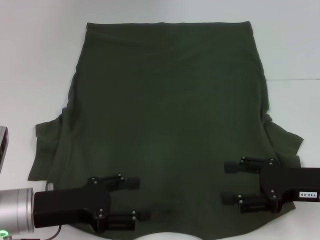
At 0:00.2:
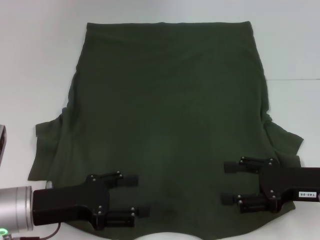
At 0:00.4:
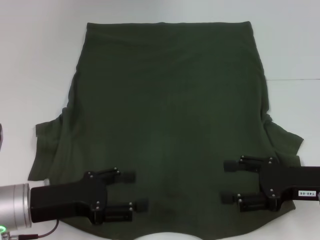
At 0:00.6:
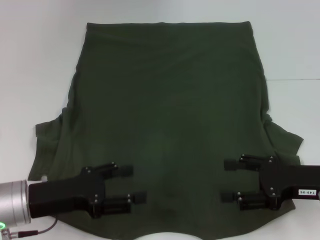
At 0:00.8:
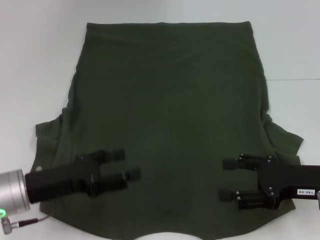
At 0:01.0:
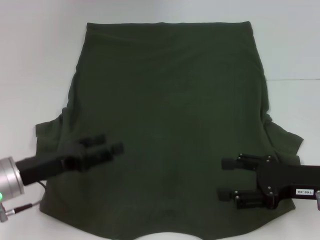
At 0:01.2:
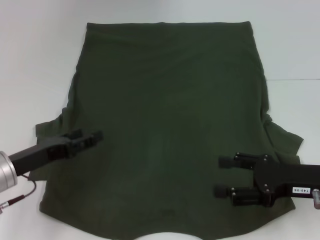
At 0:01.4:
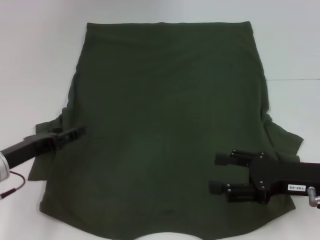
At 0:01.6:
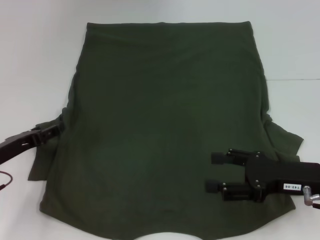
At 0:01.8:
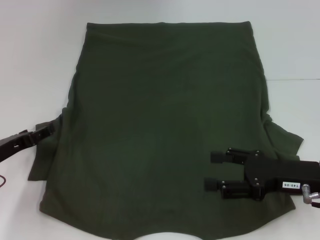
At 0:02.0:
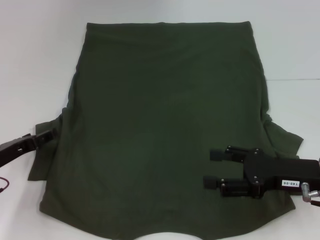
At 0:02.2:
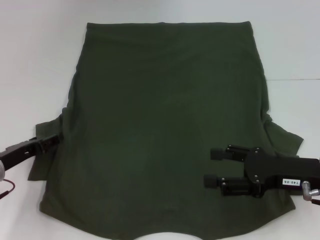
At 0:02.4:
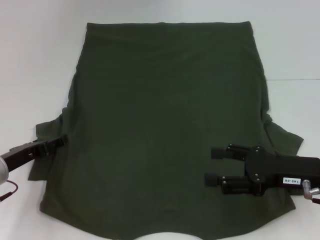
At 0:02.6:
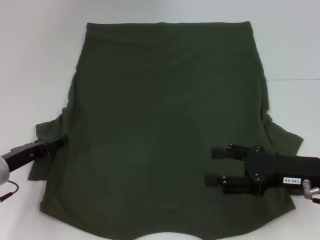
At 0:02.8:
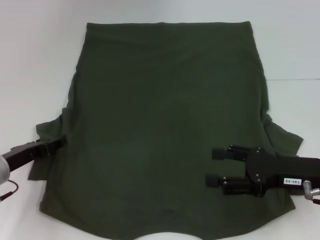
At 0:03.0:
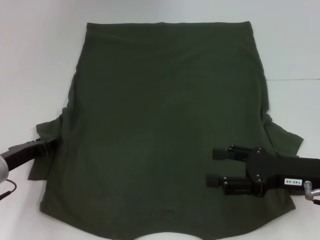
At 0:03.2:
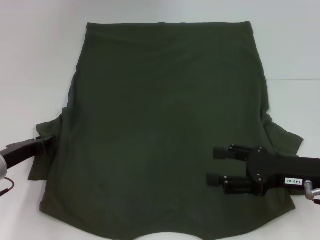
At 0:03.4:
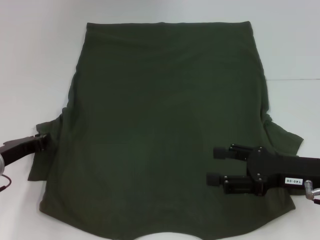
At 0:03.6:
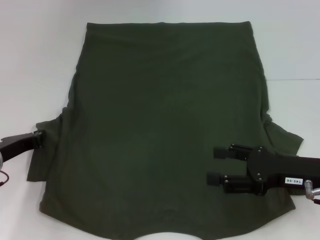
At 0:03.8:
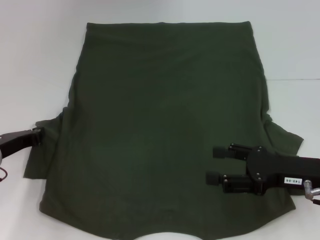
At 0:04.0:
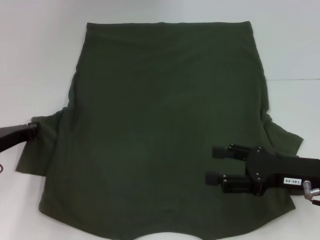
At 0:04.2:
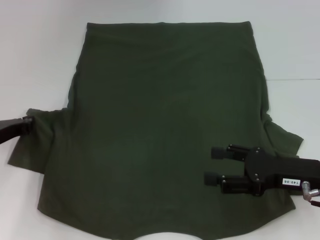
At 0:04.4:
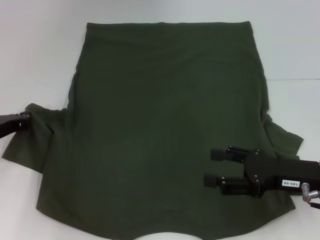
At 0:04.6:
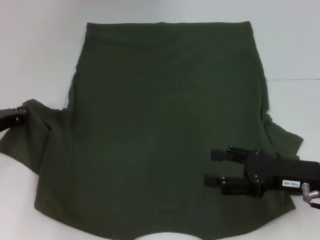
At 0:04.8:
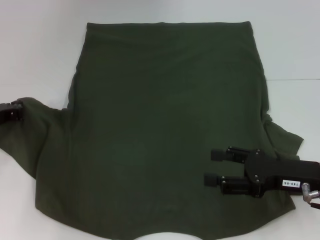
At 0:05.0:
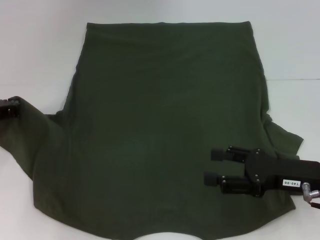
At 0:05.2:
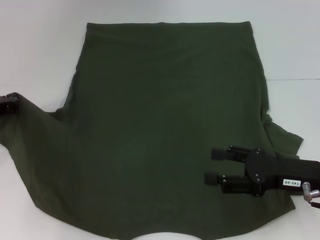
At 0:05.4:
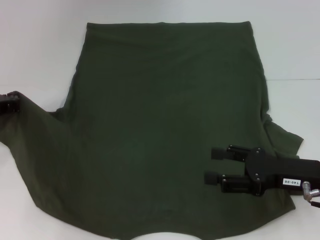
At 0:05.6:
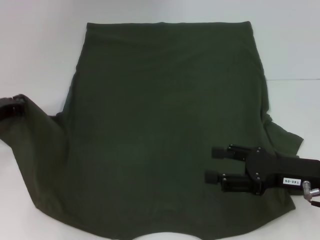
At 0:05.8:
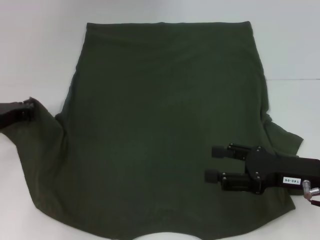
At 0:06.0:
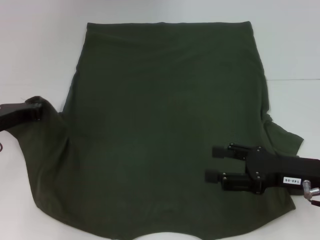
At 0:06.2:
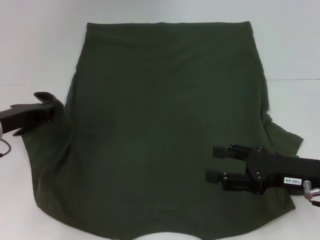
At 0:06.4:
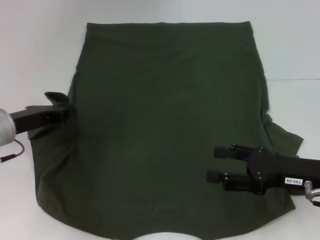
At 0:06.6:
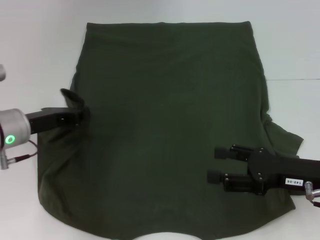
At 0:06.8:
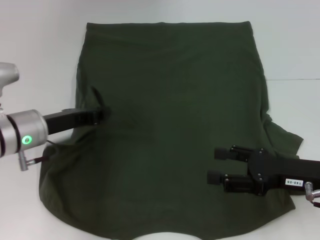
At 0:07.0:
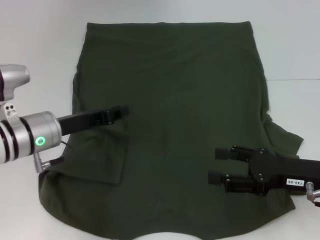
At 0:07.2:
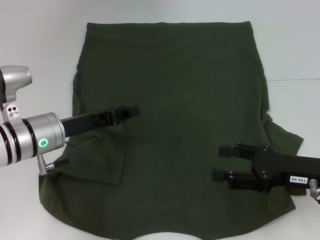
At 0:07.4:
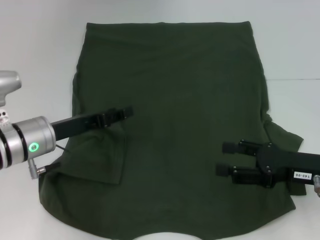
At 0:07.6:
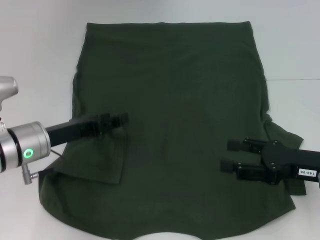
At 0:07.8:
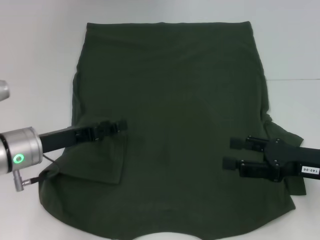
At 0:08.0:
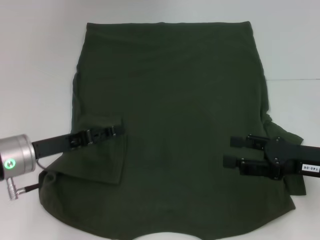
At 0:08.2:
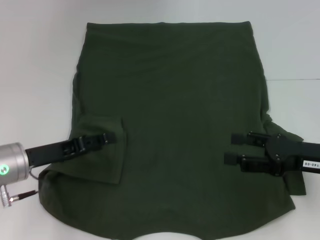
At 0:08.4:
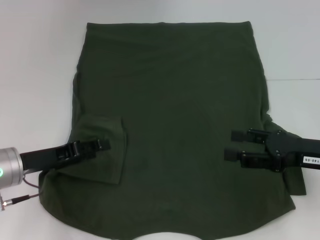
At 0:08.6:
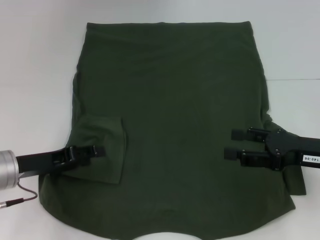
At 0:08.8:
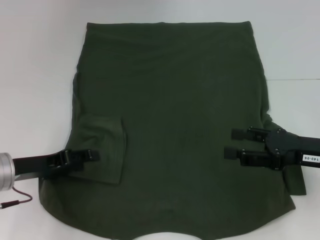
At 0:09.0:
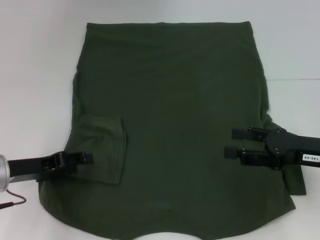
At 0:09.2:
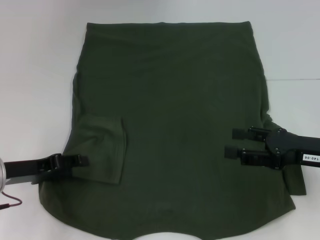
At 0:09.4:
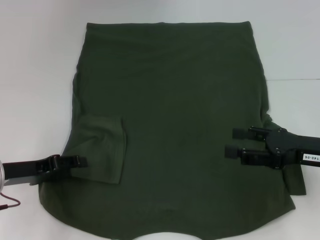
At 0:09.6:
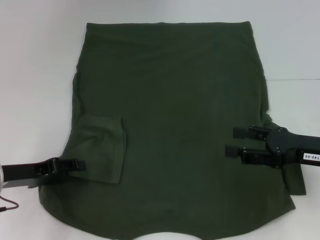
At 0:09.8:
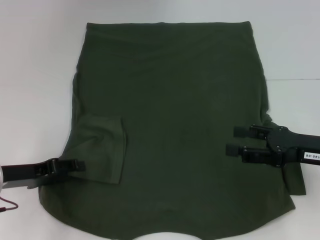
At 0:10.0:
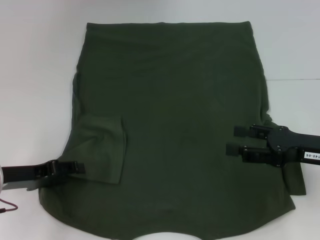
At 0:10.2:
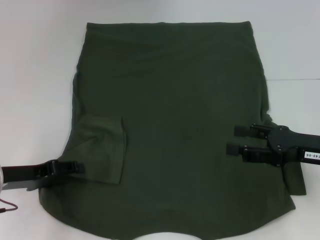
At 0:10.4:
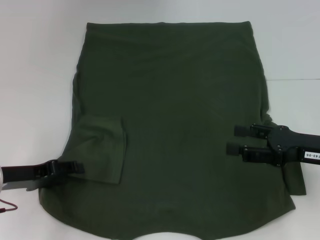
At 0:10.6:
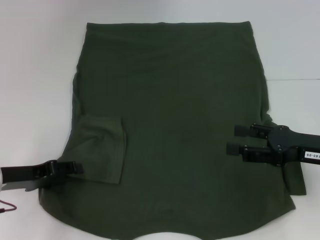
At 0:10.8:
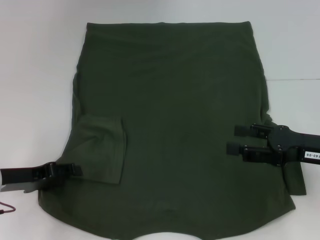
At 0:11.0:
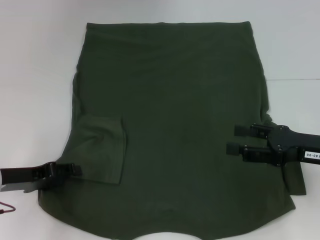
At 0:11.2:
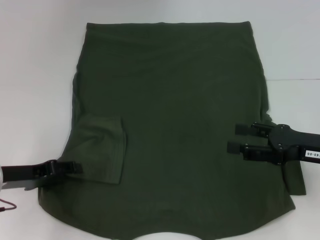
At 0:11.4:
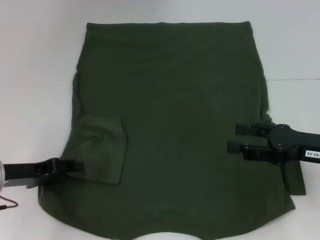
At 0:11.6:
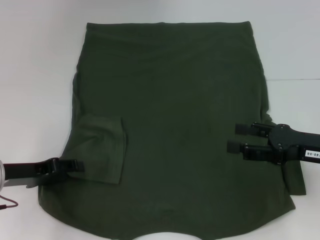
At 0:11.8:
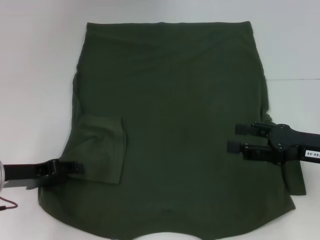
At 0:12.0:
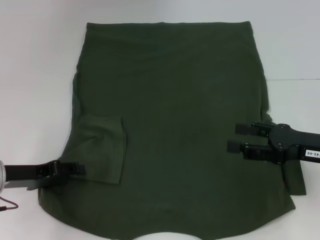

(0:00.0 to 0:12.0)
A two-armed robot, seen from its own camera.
Step, 0:00.0 - 0:07.8: Fold the bottom left sleeve with your left hand.
0:00.0 - 0:01.6: The left gripper goes some 10 cm to the left and forward.
0:01.6 - 0:03.0: The grippers move only a little.
0:03.0 - 0:04.4: The left gripper ends up some 5 cm from where it was, and closes up.
0:04.4 - 0:06.0: The grippers move only a little.
0:06.0 - 0:07.6: The left gripper moves to the right, roughly 5 cm, and opens its fingers.
0:07.6 - 0:09.0: The left gripper shifts some 5 cm to the left.
0:09.0 - 0:10.4: There are only small adjustments of the grippers.
0:10.4 - 0:12.0: Both grippers stay put.

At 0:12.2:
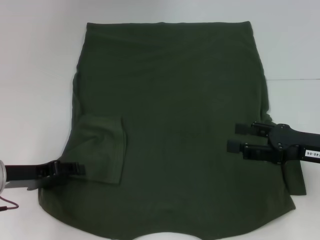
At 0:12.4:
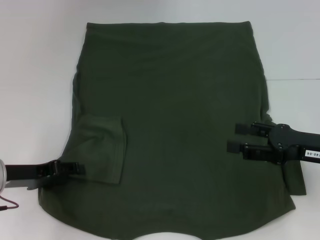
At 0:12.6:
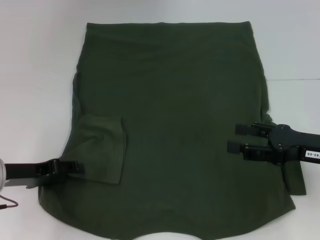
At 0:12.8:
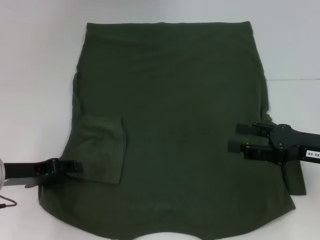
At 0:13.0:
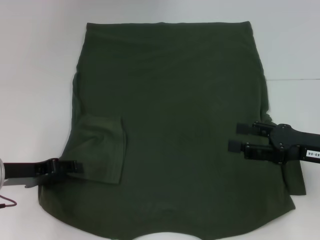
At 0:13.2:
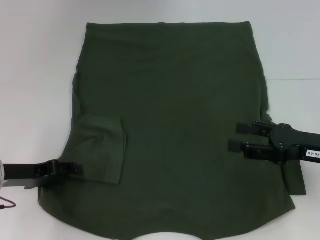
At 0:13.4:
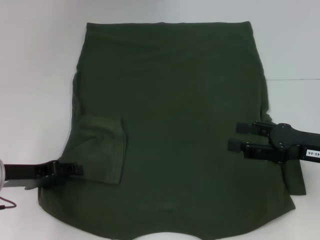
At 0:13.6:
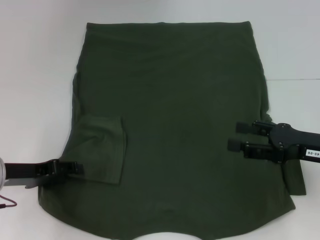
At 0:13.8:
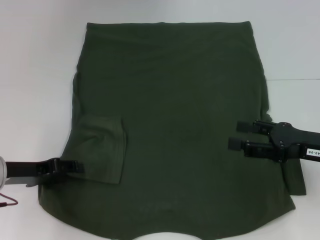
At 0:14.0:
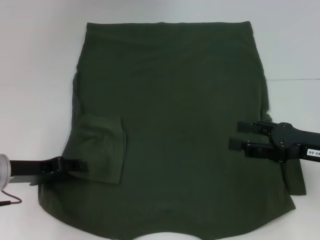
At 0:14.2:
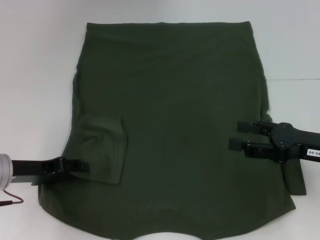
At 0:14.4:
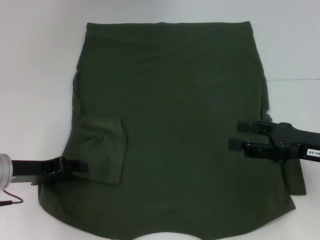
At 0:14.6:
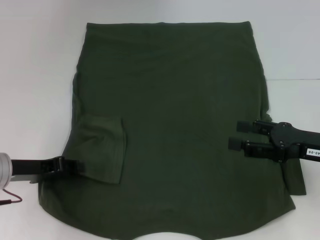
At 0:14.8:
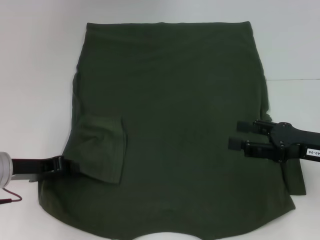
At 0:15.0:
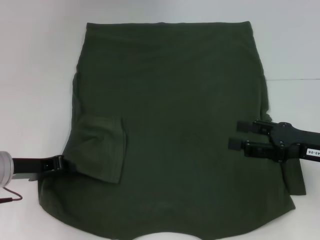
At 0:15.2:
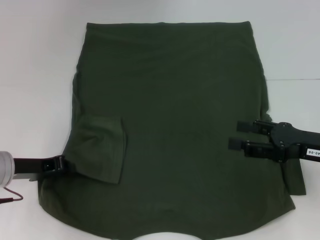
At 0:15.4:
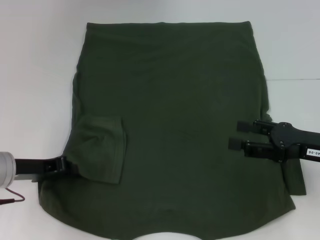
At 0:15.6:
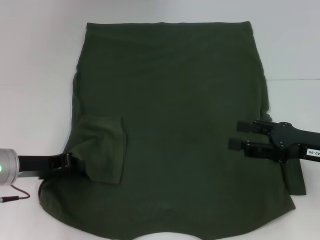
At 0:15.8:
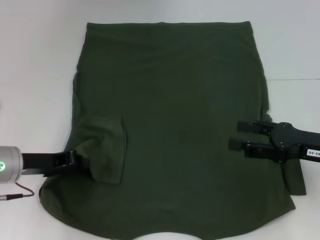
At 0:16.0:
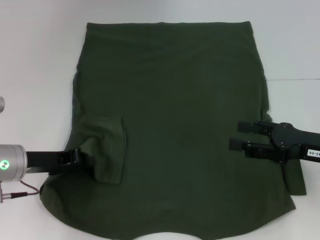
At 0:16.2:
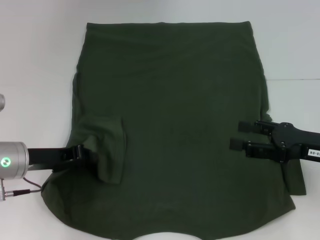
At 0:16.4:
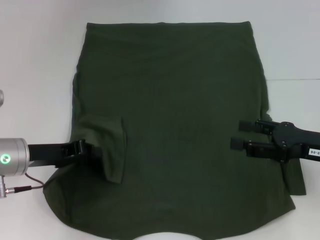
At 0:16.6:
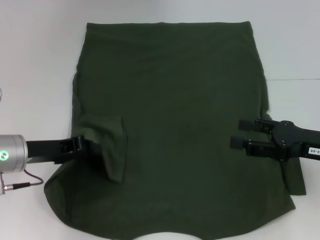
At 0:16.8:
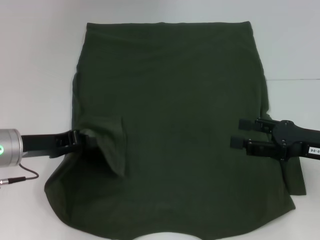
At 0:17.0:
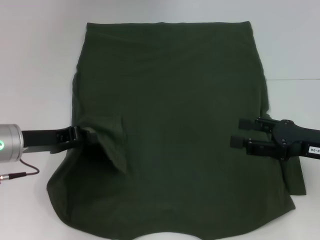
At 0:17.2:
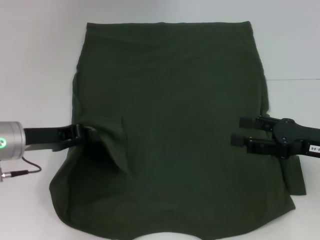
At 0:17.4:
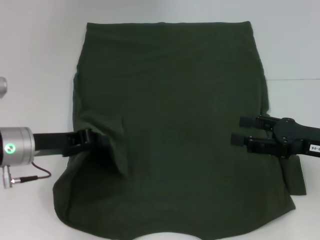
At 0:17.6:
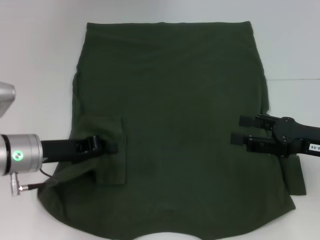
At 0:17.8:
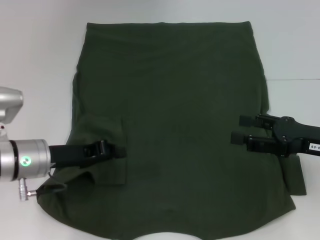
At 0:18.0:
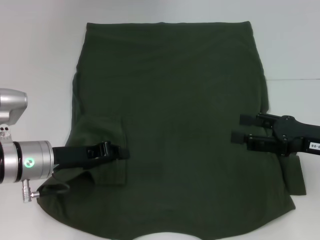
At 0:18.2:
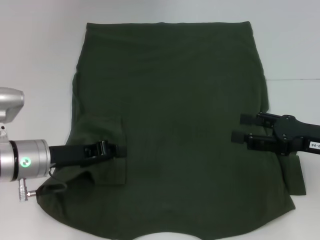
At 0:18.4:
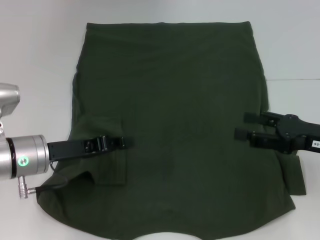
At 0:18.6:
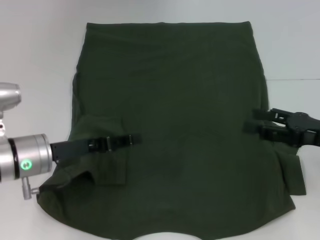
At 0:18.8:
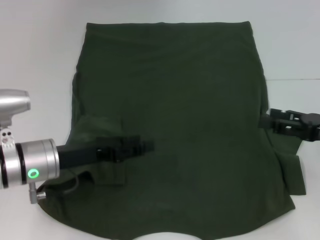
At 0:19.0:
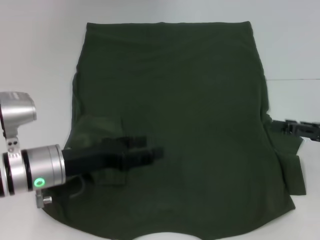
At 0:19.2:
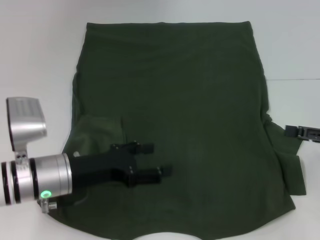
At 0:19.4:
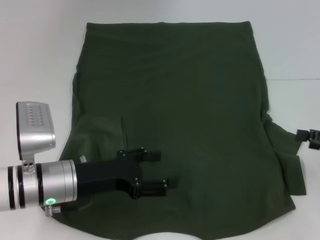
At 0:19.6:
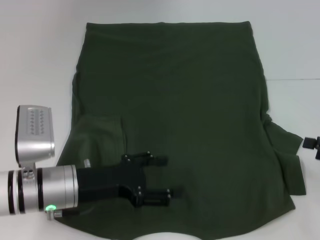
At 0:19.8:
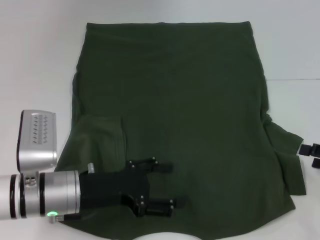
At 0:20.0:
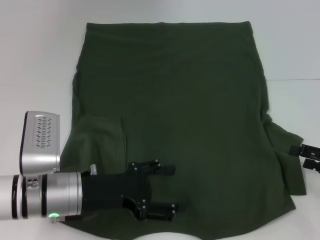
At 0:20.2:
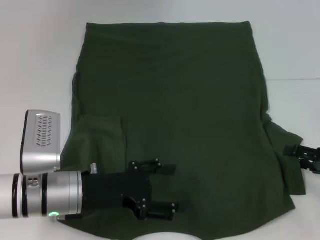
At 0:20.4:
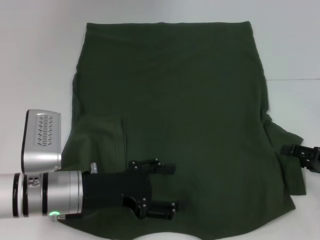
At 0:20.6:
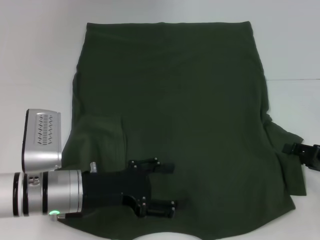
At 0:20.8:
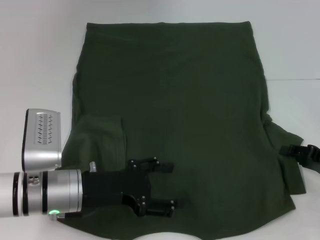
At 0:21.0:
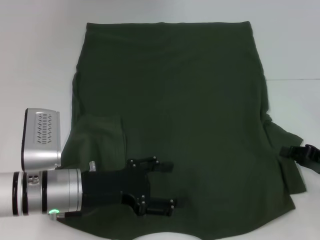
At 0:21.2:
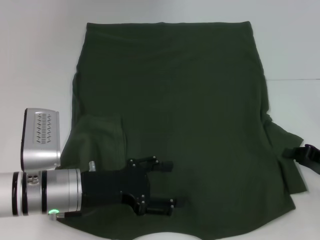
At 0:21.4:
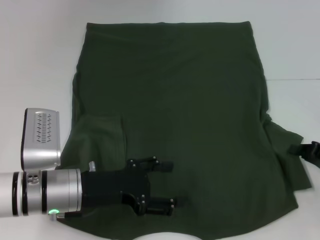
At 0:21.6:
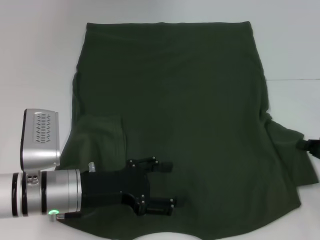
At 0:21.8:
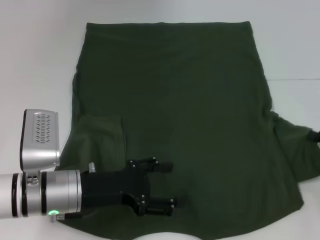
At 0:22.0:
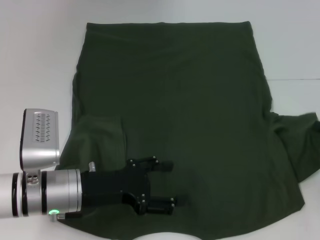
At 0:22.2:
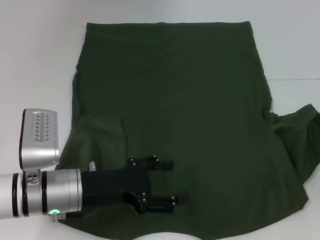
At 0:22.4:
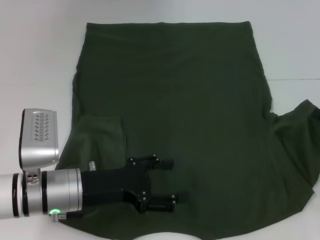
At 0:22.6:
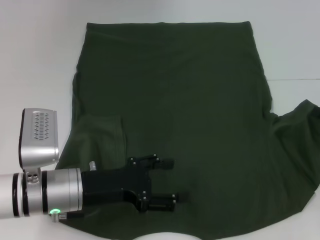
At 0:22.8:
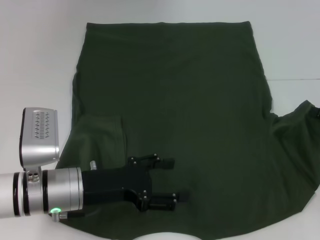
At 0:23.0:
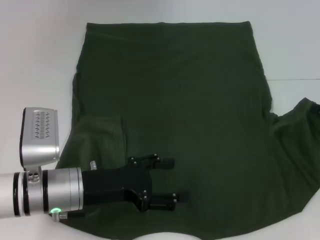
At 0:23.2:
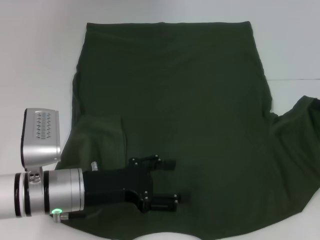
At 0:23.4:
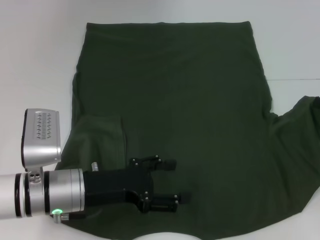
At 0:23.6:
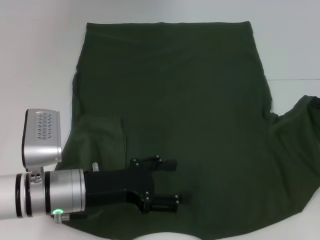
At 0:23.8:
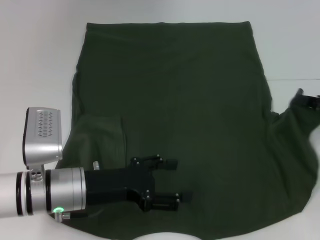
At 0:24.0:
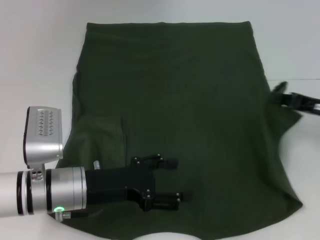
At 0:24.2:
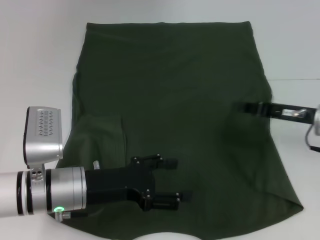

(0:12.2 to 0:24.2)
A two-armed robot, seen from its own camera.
0:12.2 - 0:13.8: Both grippers stay put.
0:13.8 - 0:15.2: The left gripper closes its fingers.
0:15.2 - 0:16.6: The grippers stay close to where they were, moving slightly.
0:16.6 - 0:18.2: The grippers stay close to where they were, moving slightly.
0:18.2 - 0:19.8: The left gripper moves approximately 5 cm, and opens its fingers, while the right gripper moves to the right, roughly 10 cm.
0:19.8 - 0:21.2: The right gripper moves some 5 cm, and closes up.
0:21.2 - 0:22.6: The right gripper shifts by about 5 cm.
0:22.6 - 0:24.2: The right gripper heads to the left, covering some 10 cm.
